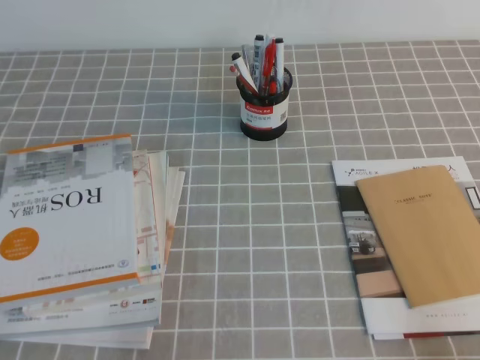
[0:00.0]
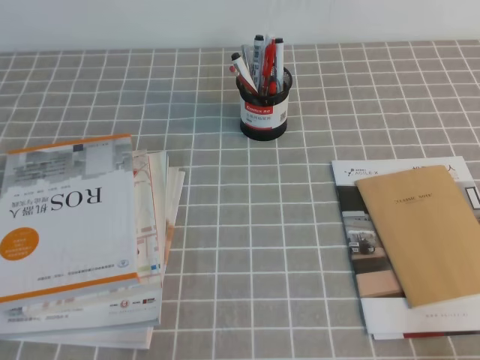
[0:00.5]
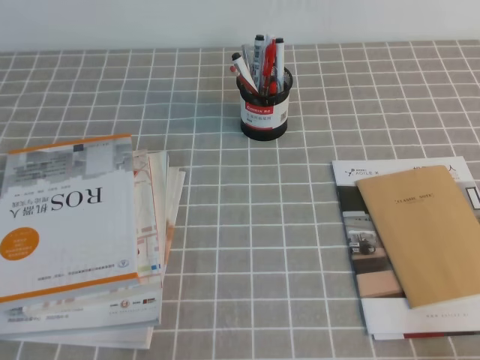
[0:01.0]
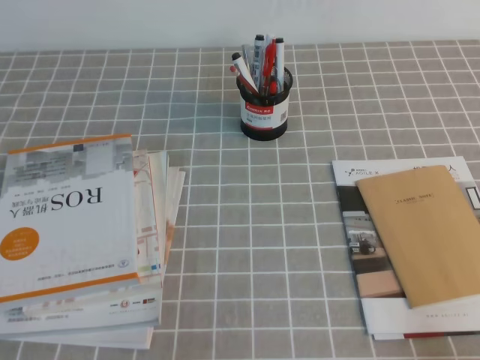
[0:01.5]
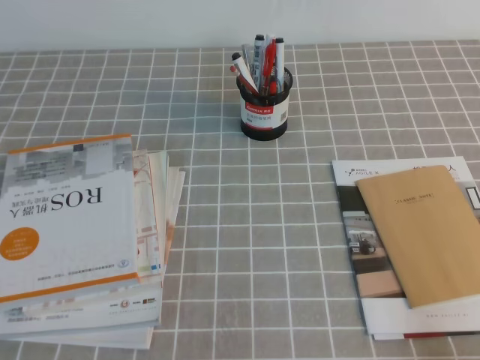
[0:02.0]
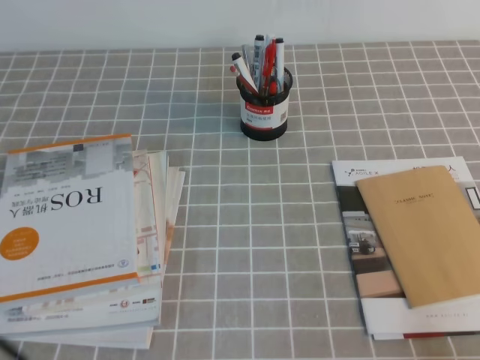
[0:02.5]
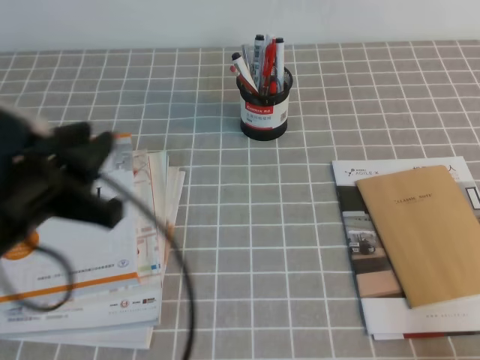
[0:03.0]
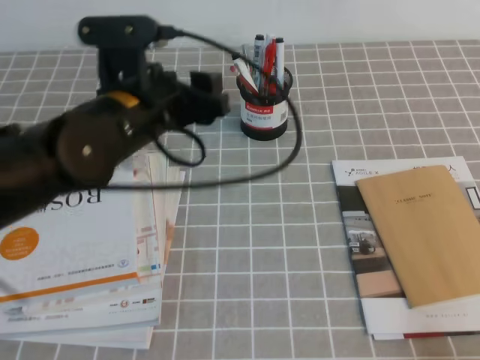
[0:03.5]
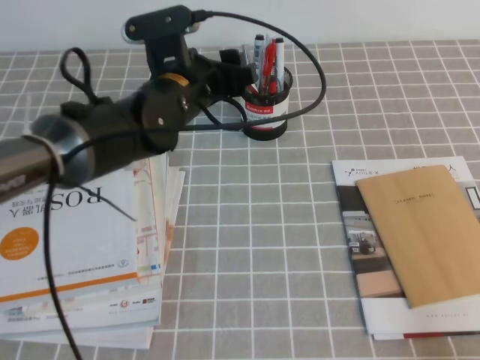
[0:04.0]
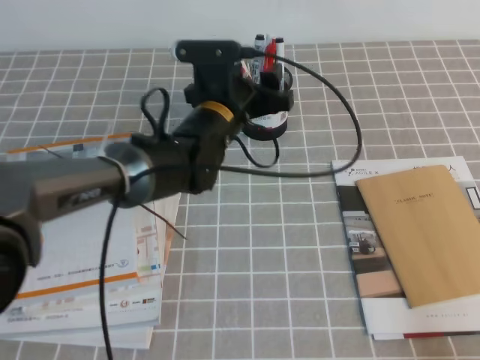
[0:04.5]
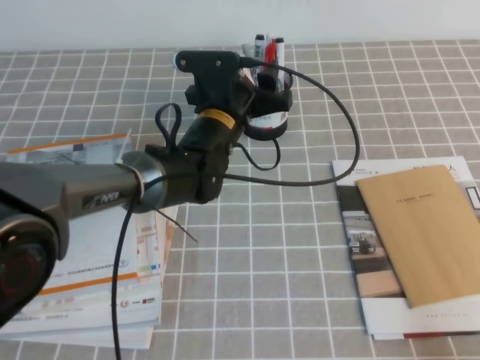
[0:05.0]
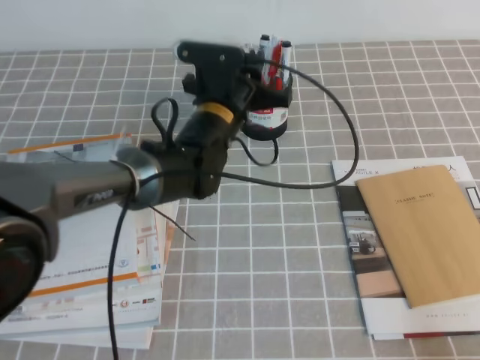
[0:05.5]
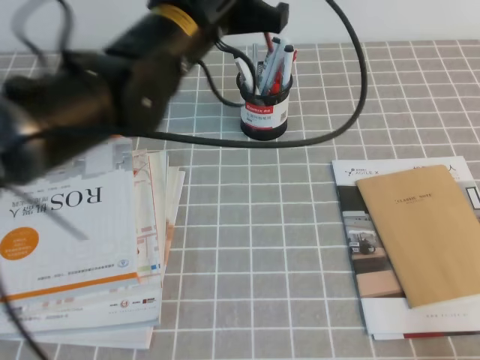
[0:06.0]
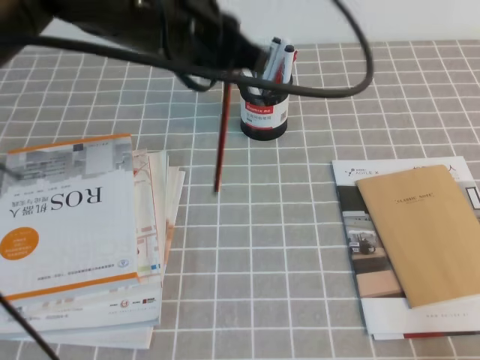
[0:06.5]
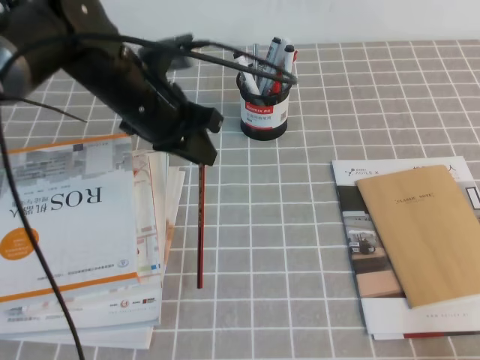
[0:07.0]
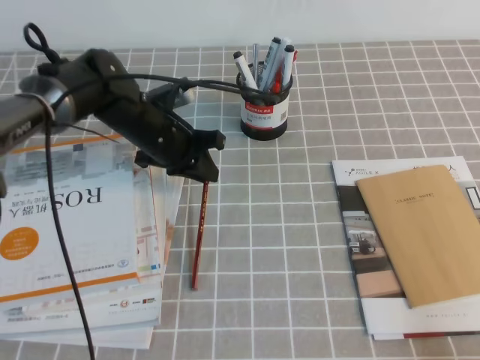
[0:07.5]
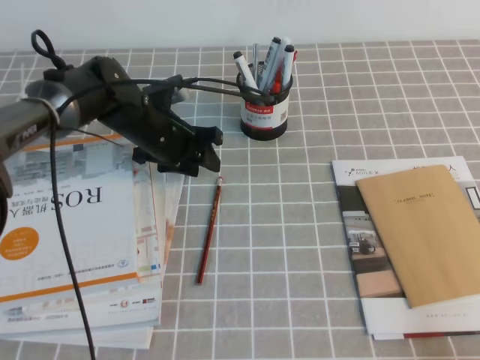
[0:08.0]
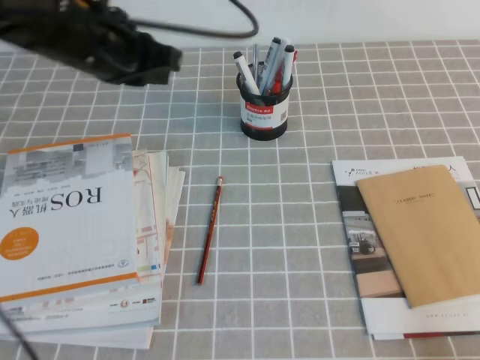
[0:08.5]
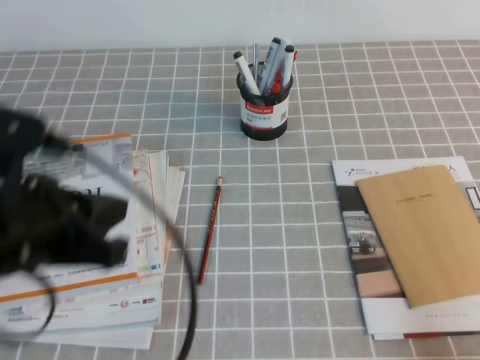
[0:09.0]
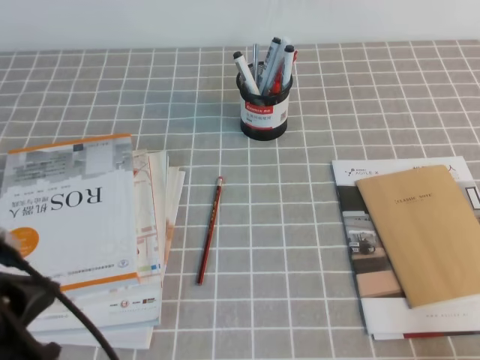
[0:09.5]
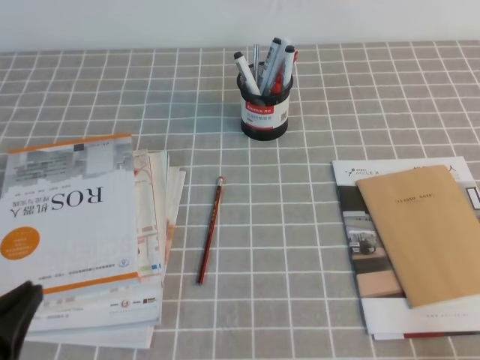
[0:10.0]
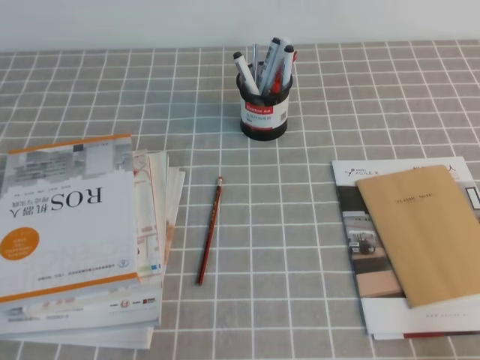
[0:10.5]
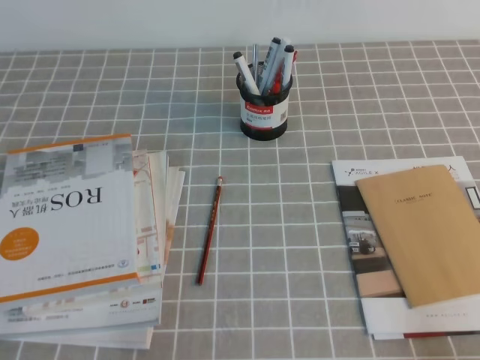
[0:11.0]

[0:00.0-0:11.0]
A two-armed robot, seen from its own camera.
Step, 0:00.0 to 0:11.0: Pick up the pen from the pen holder.
0:02.0 to 0:03.5: The left gripper moves forward and to the right, about 30 cm, and opens its fingers.
0:03.5 to 0:05.5: The left gripper travels forward, to the right and downward by roughly 15 cm, and closes up.
0:05.5 to 0:07.5: The left gripper is displaced to the left by roughly 10 cm, and travels upward and back again, some 15 cm each way.
0:07.5 to 0:09.0: The left gripper shifts roughly 25 cm backward and upward, and opens, then closes once more.
0:09.0 to 0:11.0: The left gripper goes some 20 cm downward, backward and to the left.
